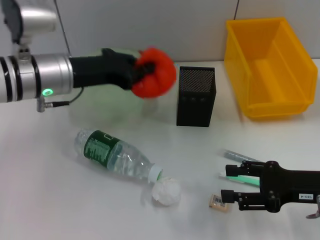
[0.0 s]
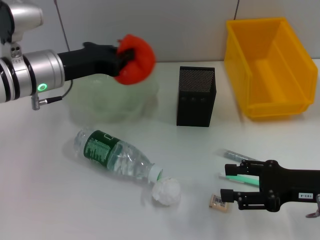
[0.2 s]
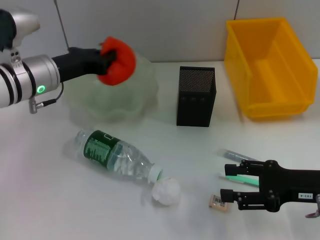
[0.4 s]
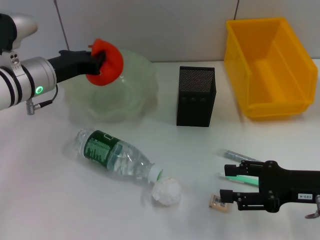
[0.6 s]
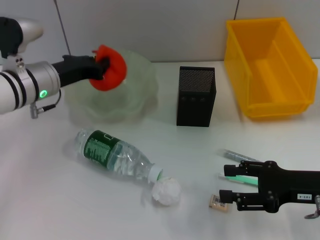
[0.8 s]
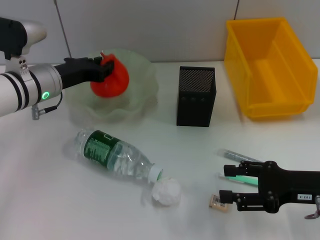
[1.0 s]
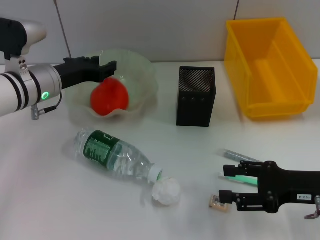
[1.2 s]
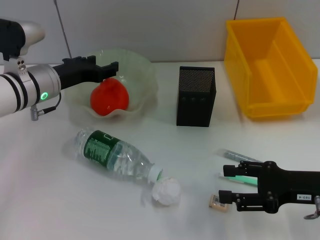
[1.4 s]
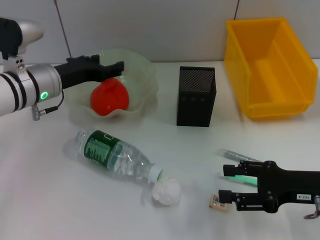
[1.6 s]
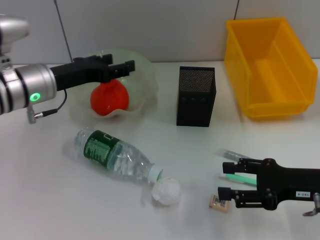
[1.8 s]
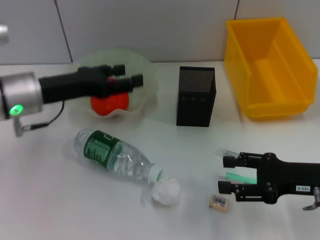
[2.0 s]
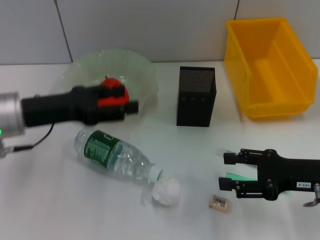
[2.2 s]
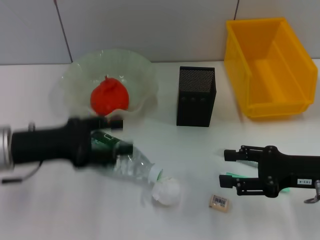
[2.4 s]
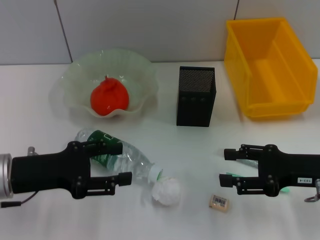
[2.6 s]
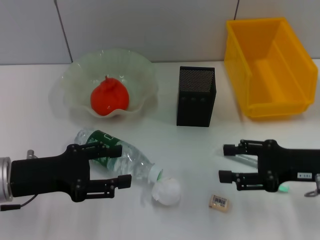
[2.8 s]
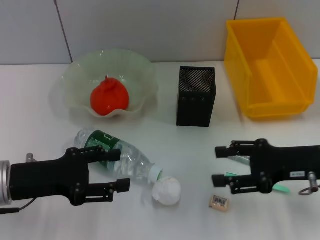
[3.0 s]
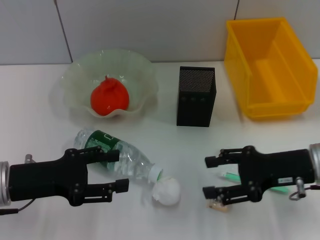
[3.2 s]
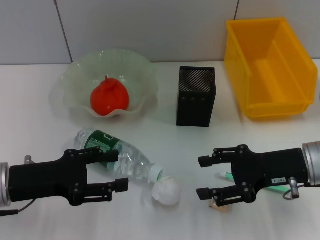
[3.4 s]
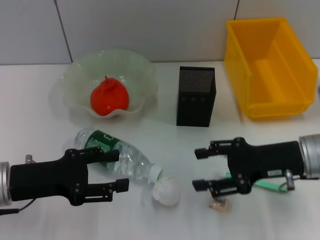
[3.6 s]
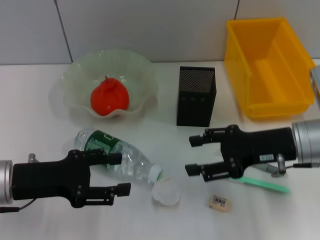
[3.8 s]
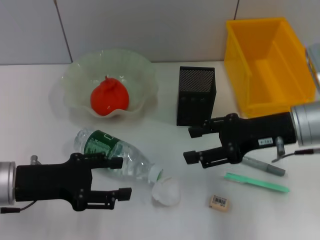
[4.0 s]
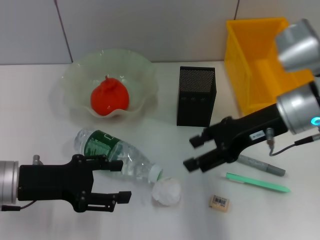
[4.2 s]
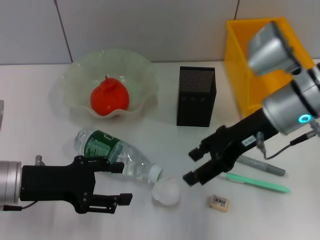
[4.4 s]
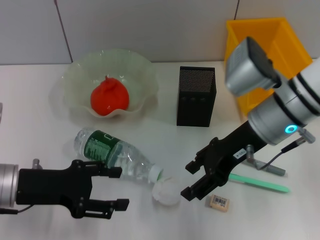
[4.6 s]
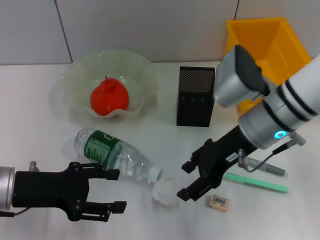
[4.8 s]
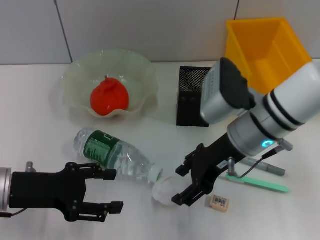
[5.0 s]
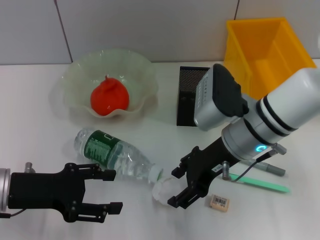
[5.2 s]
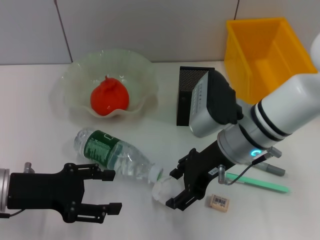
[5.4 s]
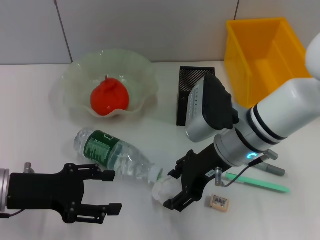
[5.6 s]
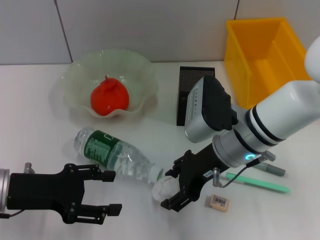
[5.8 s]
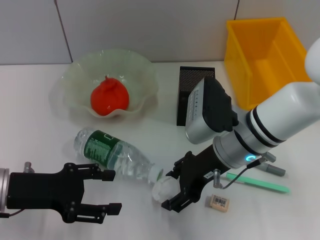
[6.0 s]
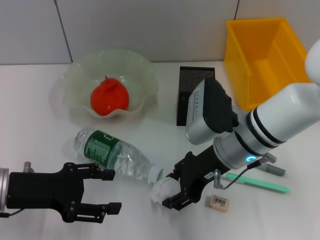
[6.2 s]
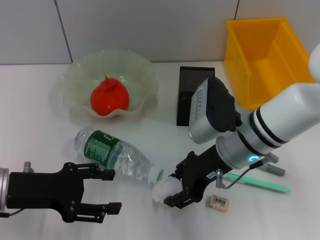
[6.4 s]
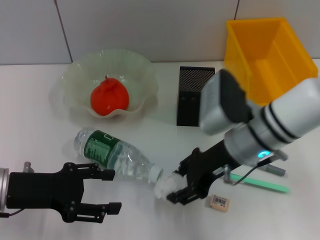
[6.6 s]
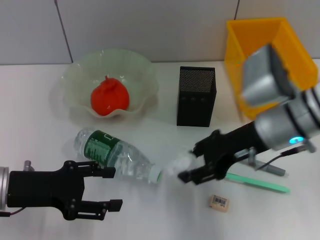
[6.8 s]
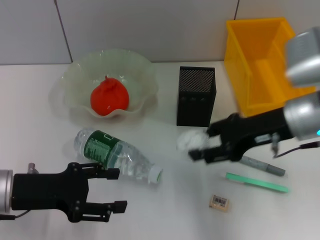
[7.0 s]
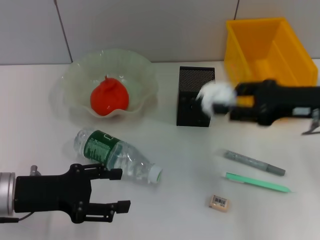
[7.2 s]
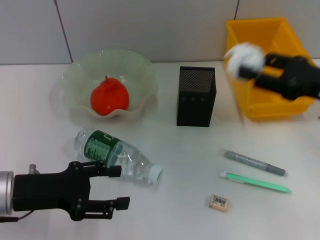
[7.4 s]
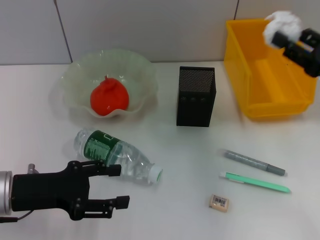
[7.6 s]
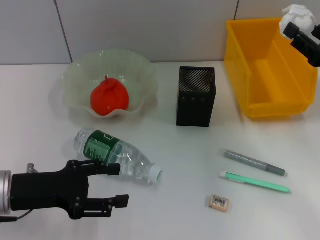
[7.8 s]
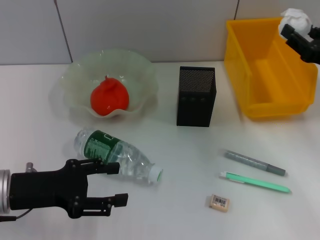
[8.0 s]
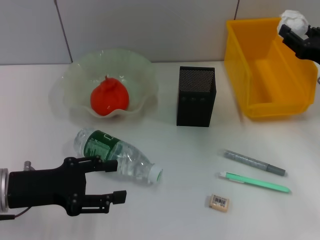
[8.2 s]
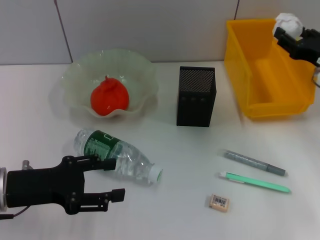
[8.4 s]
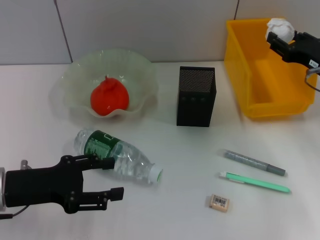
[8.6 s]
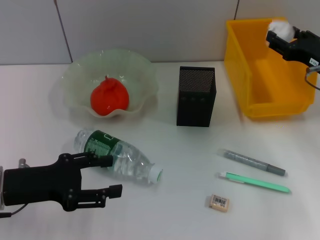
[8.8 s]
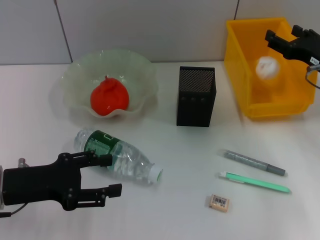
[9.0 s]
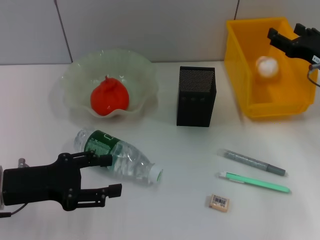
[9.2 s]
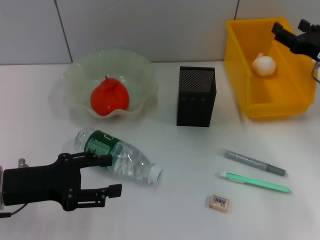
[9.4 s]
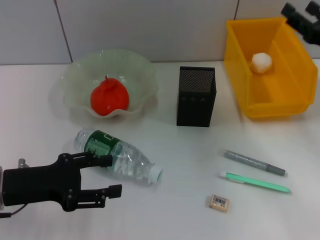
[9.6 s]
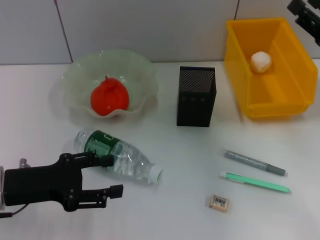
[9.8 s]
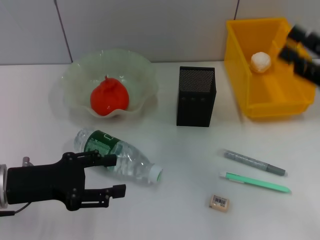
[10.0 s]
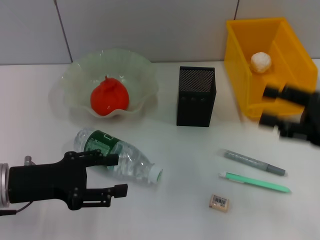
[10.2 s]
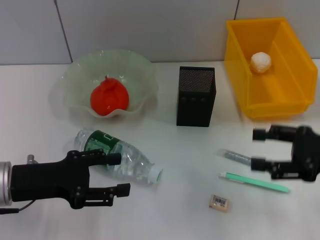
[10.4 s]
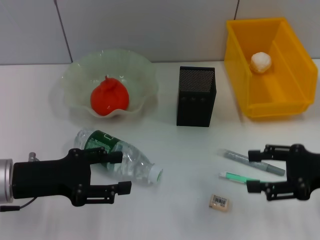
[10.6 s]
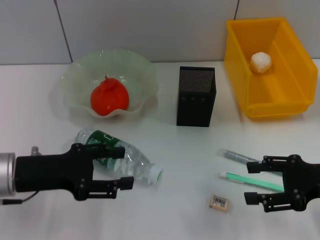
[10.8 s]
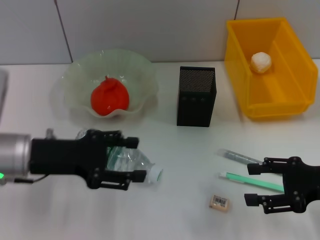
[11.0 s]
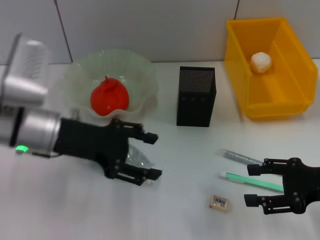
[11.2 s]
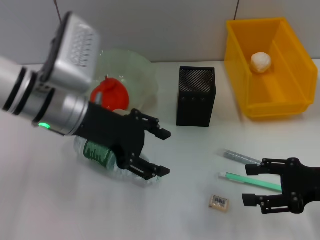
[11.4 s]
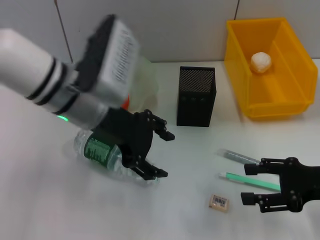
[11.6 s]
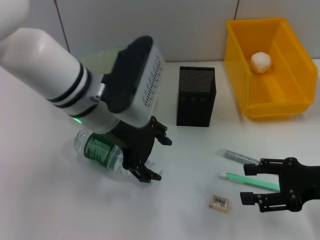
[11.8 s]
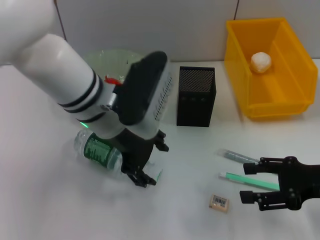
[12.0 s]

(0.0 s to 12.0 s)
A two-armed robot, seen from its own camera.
Step, 0.0 s - 1.4 s: Place the orange into the fruit bowl with the left hand.
Step, 1.6 s - 6.2 s: Grab the paper ball with the right hand.
Step, 6.4 s - 9.2 s: Place the paper ball into the trash can with the right hand.
0.0 s - 1.6 s: The left gripper changes place by roughly 5 cm, and opens.
1.6 s - 3.0 s: The left gripper is displaced backward by approximately 15 cm.
3.0 s - 4.4 s: The right gripper shifts approximately 15 cm to the left, upward and forward.
4.4 s - 6.0 s: The right gripper travels to the left and downward by some 10 cm.
6.0 s - 7.6 s: The right gripper goes some 20 cm to the right.
7.6 s - 9.0 s: The right gripper shifts about 10 cm forward.
9.0 s - 10.4 s: The right gripper heads backward, covering about 10 cm.
10.4 s - 12.0 s: The left gripper travels to the right, upward and forward by approximately 20 cm.

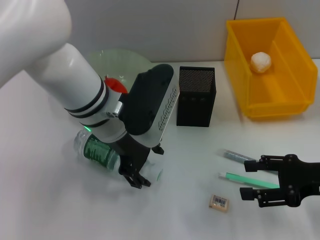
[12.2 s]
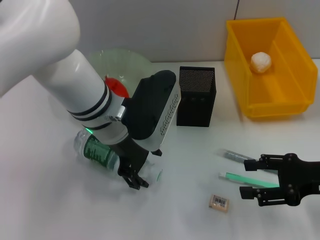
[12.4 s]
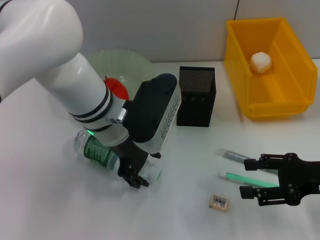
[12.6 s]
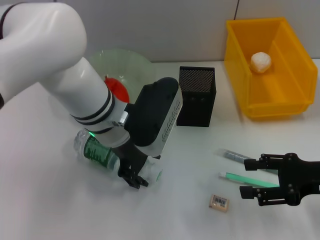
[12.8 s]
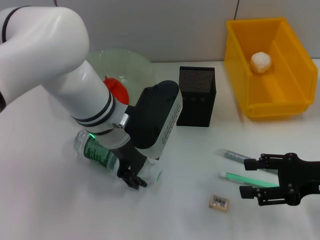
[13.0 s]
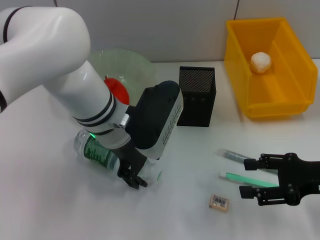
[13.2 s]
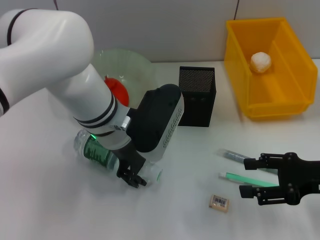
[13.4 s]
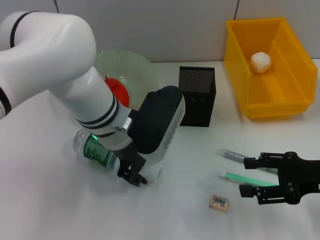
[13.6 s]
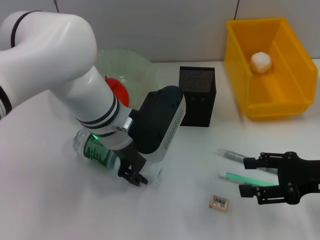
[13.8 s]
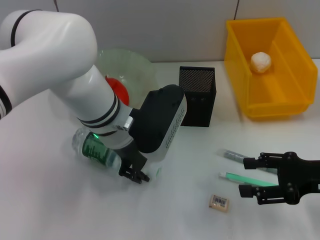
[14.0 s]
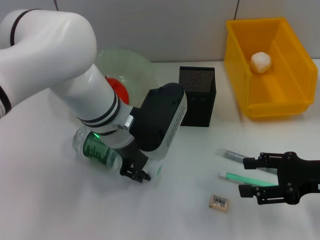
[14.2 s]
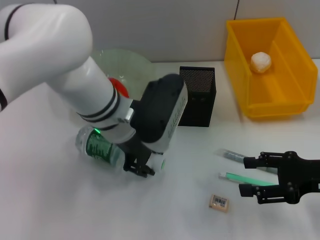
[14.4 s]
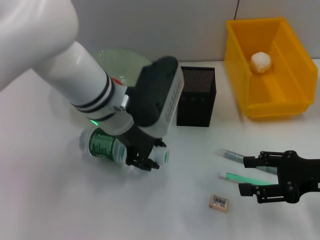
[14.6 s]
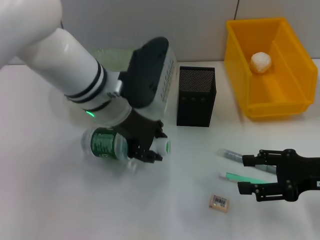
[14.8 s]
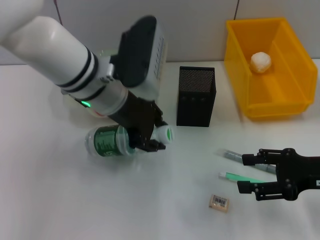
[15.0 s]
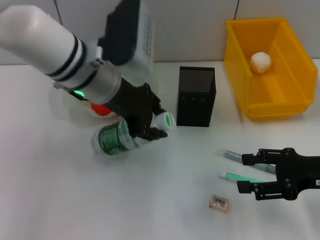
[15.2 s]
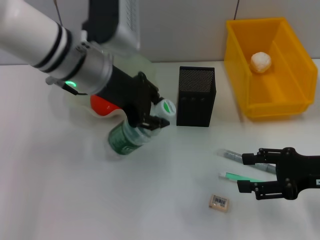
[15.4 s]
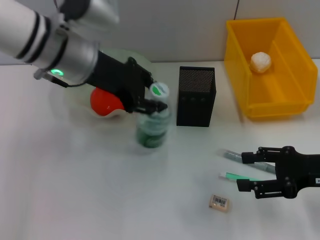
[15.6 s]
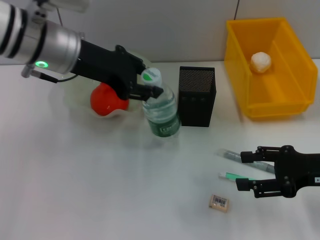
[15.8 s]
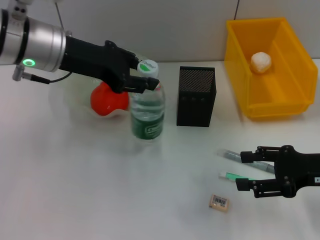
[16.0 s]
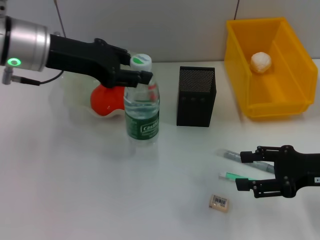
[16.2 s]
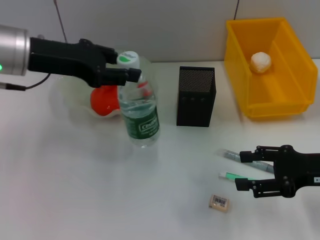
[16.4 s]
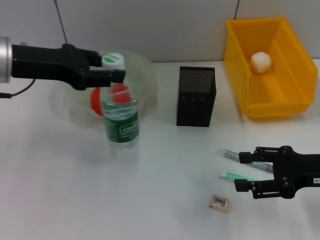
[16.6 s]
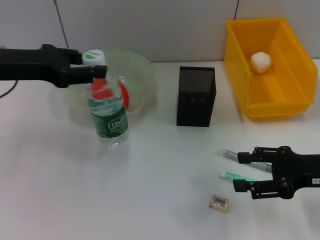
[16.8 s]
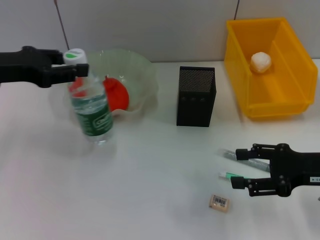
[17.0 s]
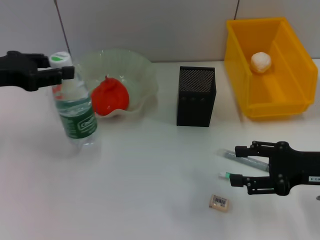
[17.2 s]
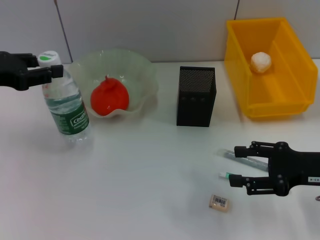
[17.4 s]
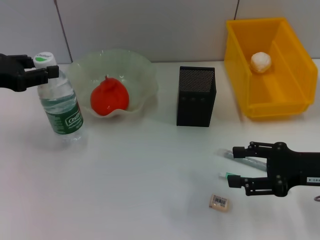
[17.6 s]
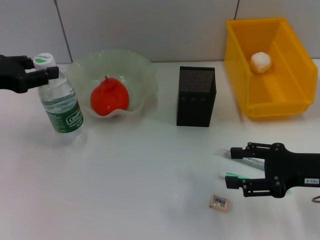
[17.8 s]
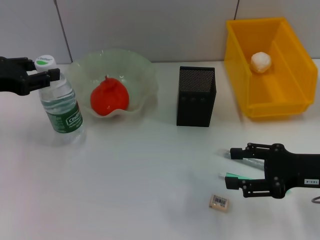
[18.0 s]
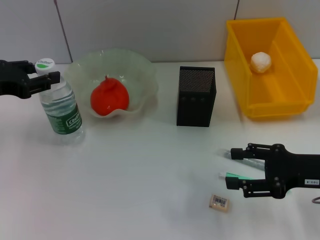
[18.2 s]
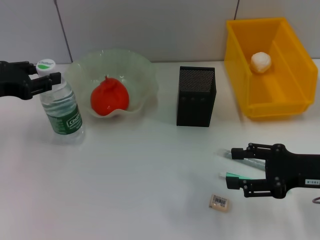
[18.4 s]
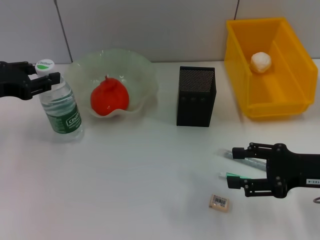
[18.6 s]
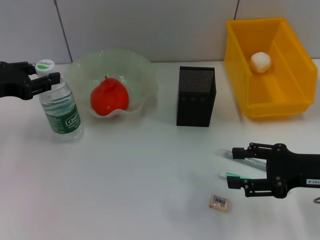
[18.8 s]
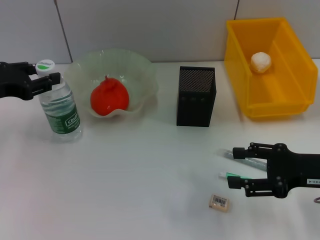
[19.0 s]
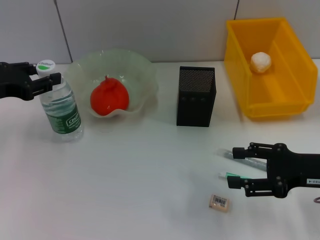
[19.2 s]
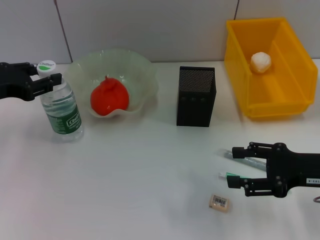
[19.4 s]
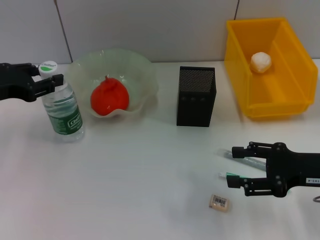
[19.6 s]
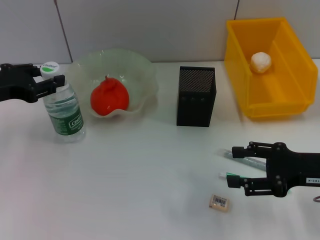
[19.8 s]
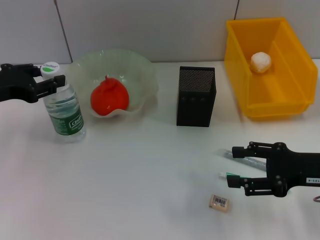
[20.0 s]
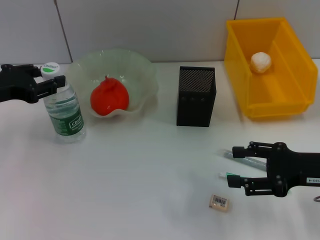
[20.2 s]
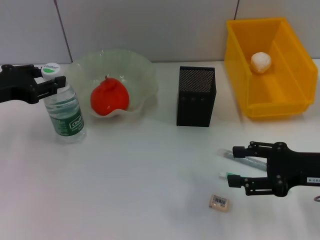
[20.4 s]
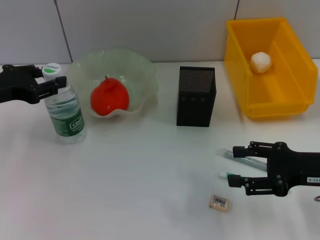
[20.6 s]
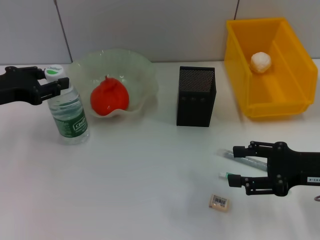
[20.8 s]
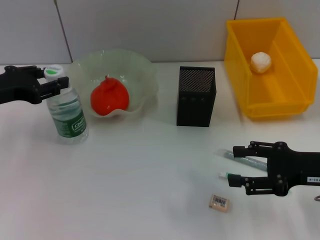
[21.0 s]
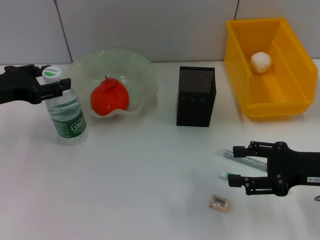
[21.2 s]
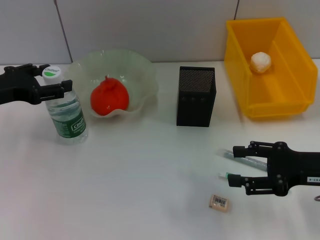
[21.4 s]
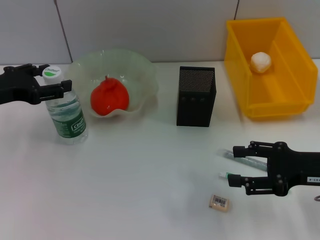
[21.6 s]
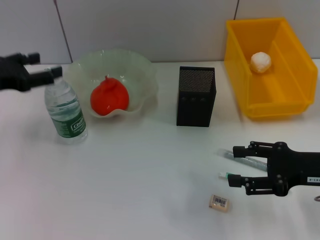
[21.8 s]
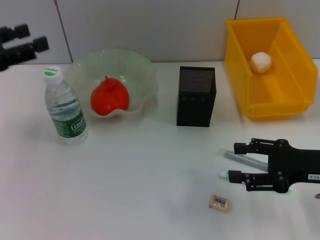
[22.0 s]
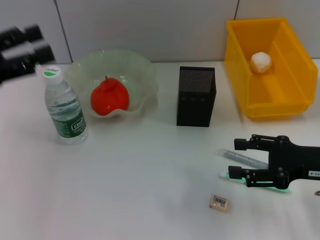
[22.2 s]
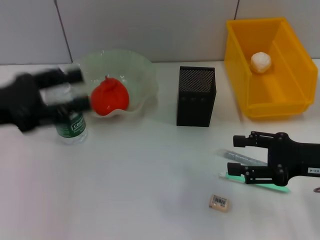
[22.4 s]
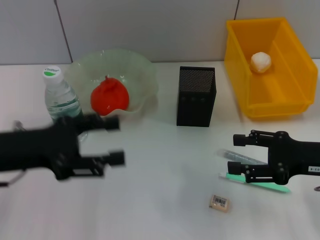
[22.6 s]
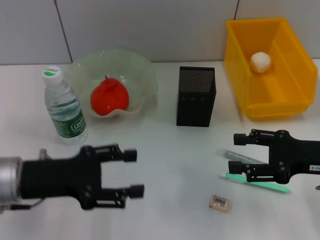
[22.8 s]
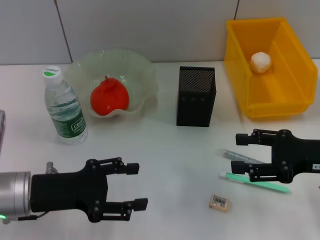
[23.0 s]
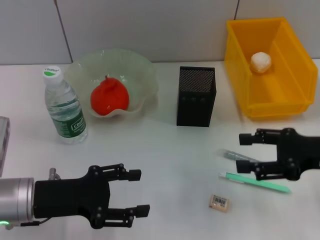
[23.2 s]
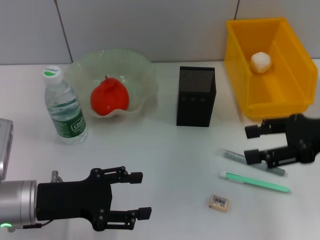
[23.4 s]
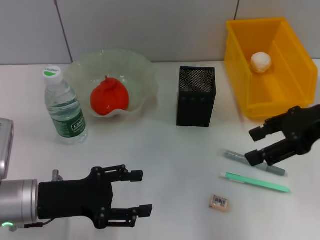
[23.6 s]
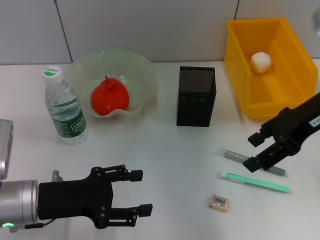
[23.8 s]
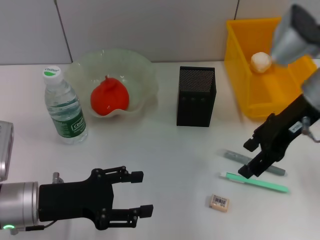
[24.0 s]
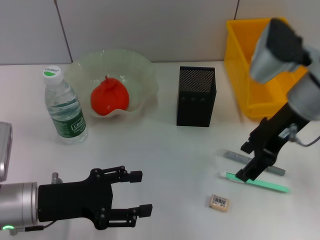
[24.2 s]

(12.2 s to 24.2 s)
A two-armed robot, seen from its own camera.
Step, 12.2 s - 14.2 s: Grab the water bottle with the left hand.
Step, 14.4 s - 21.6 s: Place the water bottle on the table with the left hand.
12.2 s - 13.8 s: There are only small adjustments of the grippers.
13.8 s - 15.2 s: The left gripper shifts about 5 cm upward.
15.2 s - 16.6 s: The left gripper goes some 15 cm to the left.
16.6 s - 18.2 s: The left gripper goes some 10 cm to the left.
18.2 s - 19.8 s: The two grippers keep their place.
19.8 s - 21.2 s: Both grippers stay put.
21.2 s - 22.6 s: The left gripper moves backward, approximately 5 cm.
22.6 s - 24.2 s: The right gripper shifts some 15 cm to the left, upward and forward. The left gripper shifts approximately 10 cm downward.
